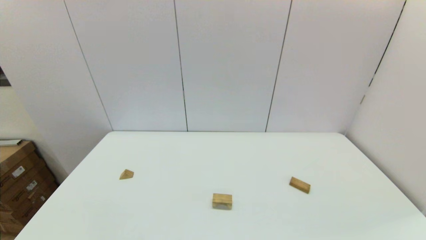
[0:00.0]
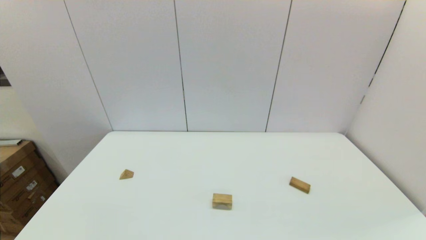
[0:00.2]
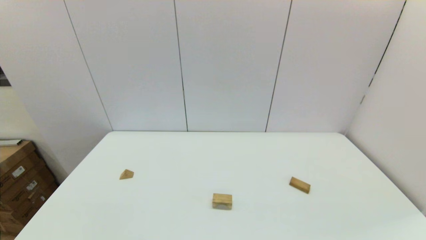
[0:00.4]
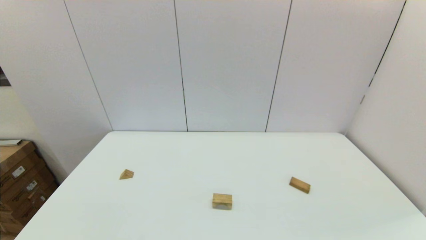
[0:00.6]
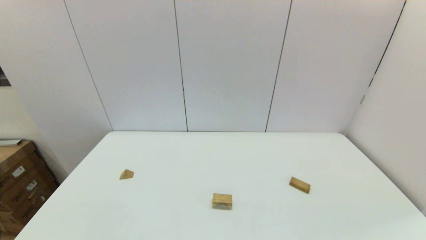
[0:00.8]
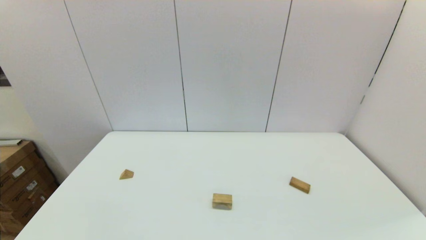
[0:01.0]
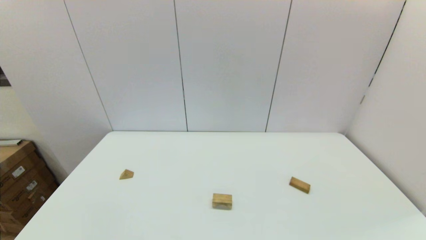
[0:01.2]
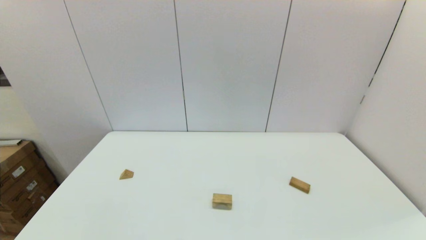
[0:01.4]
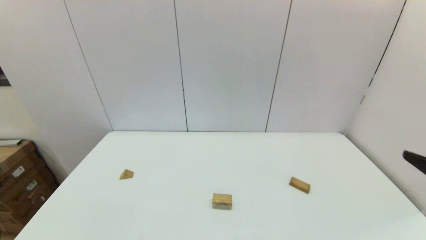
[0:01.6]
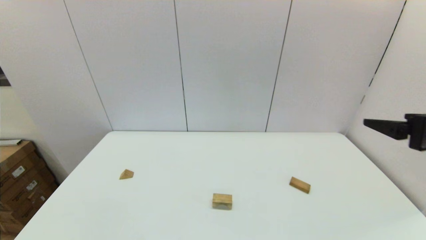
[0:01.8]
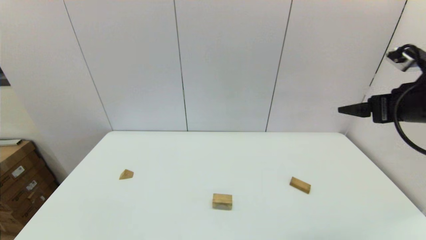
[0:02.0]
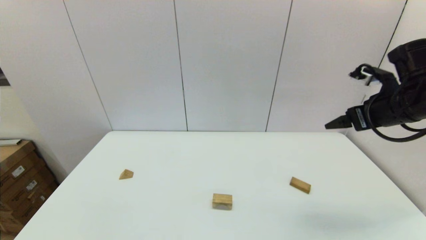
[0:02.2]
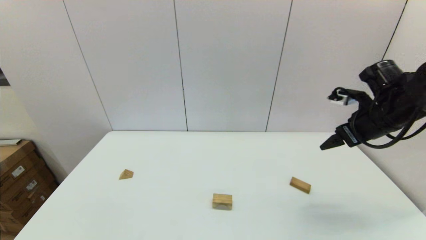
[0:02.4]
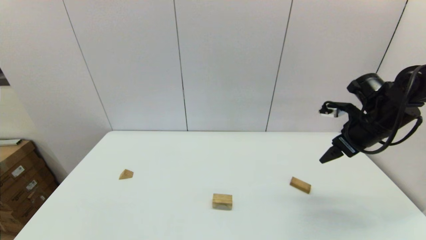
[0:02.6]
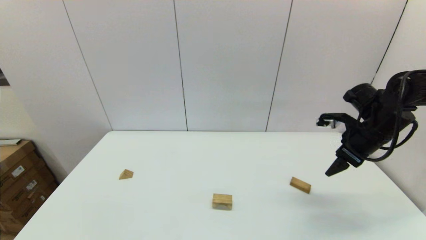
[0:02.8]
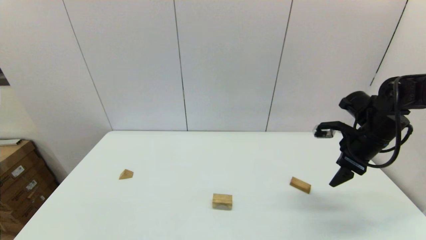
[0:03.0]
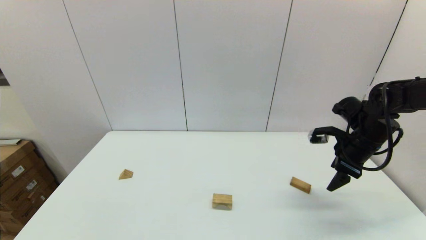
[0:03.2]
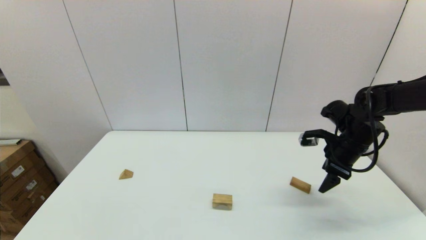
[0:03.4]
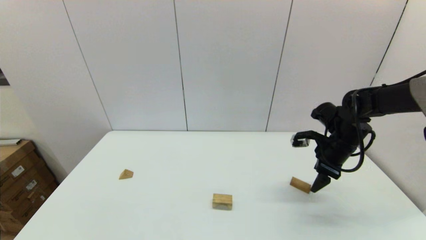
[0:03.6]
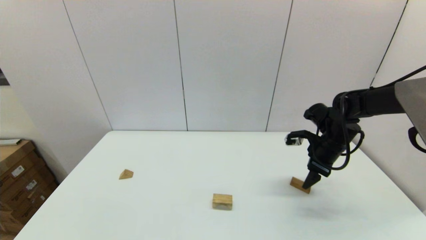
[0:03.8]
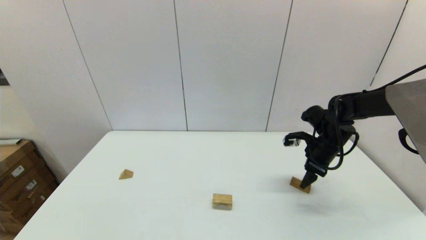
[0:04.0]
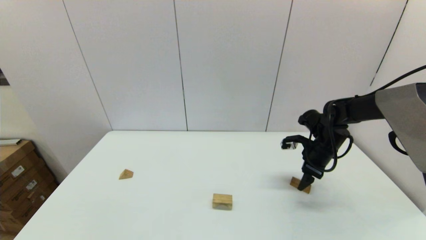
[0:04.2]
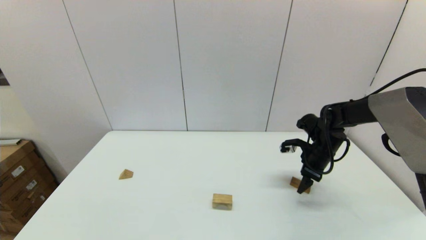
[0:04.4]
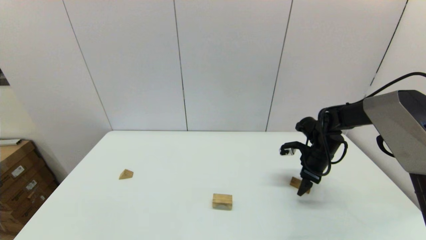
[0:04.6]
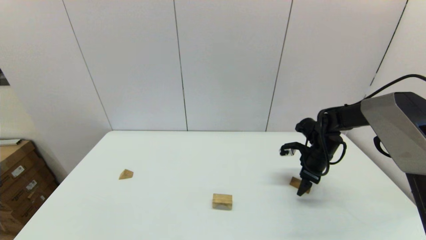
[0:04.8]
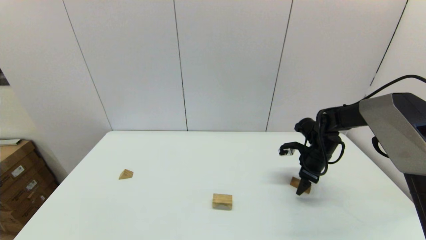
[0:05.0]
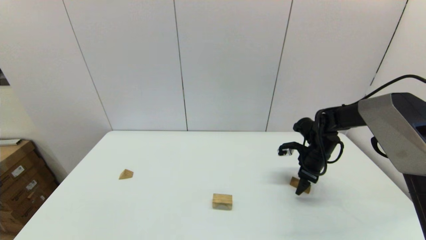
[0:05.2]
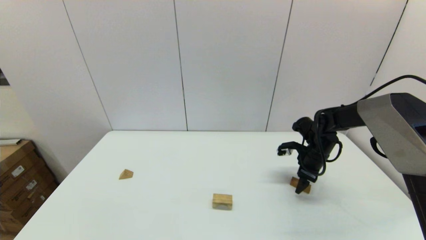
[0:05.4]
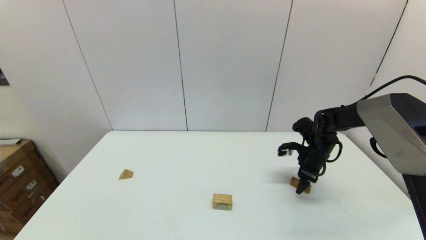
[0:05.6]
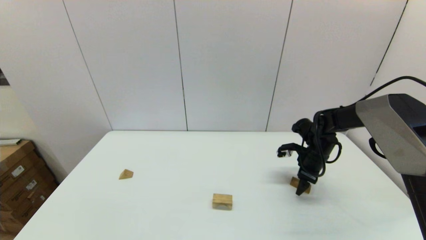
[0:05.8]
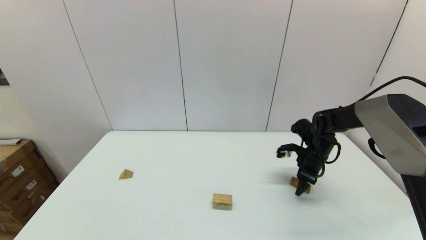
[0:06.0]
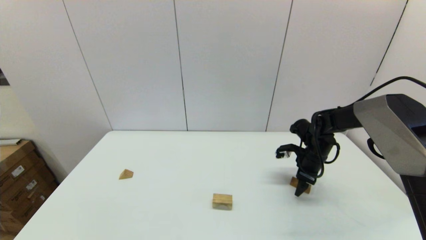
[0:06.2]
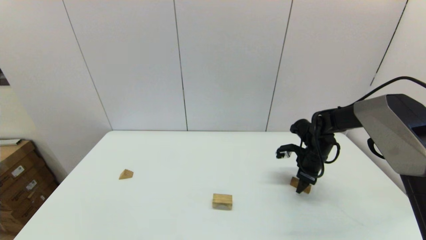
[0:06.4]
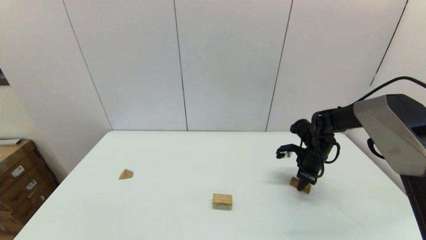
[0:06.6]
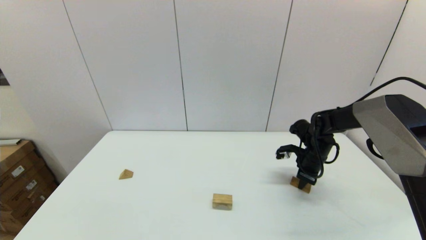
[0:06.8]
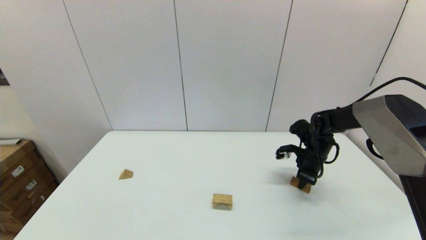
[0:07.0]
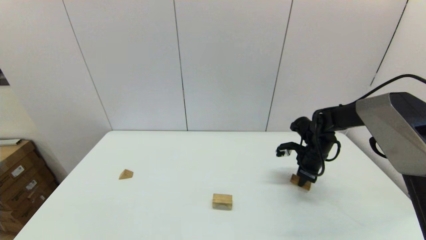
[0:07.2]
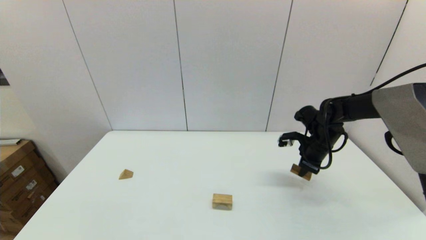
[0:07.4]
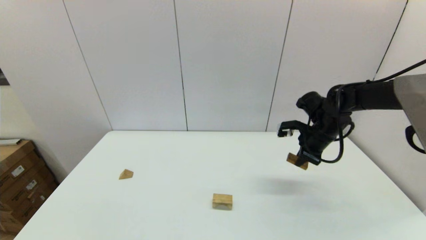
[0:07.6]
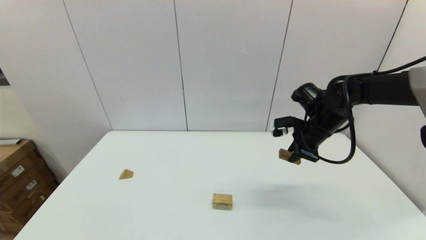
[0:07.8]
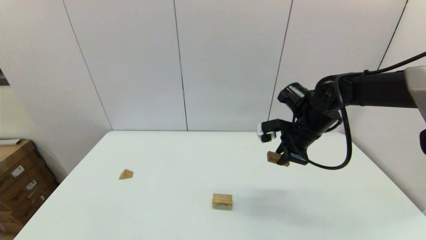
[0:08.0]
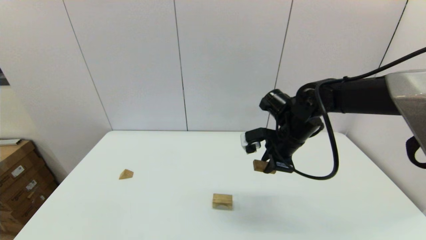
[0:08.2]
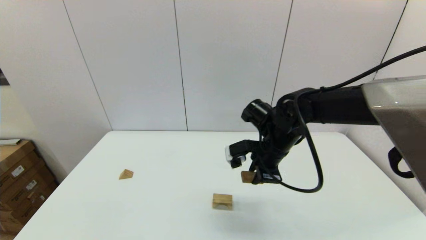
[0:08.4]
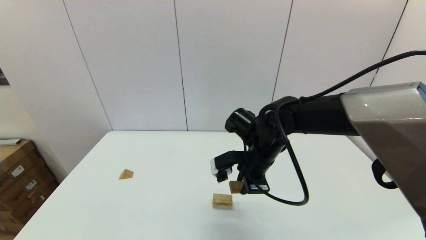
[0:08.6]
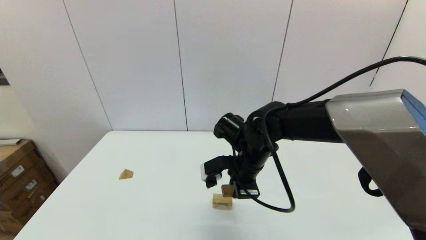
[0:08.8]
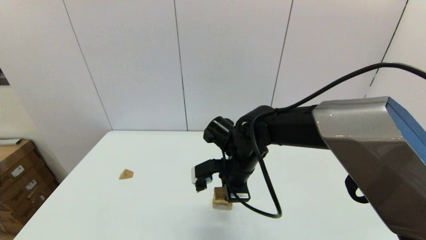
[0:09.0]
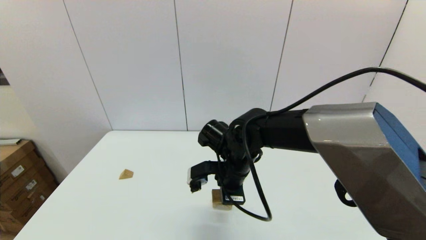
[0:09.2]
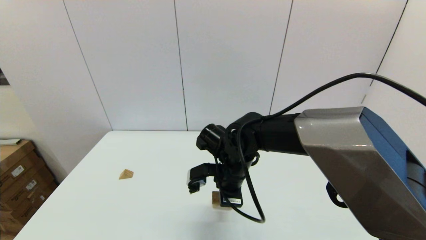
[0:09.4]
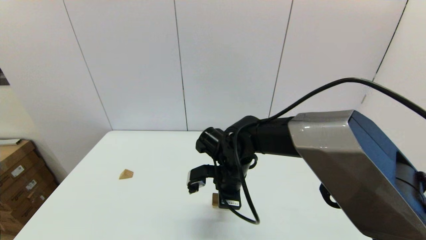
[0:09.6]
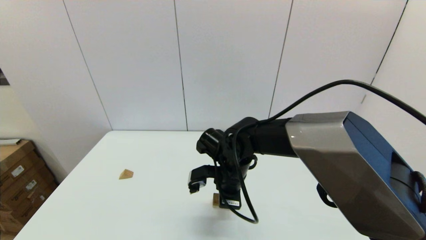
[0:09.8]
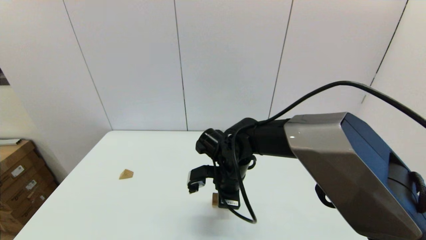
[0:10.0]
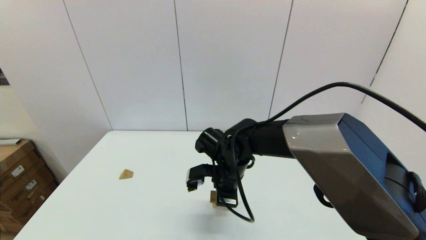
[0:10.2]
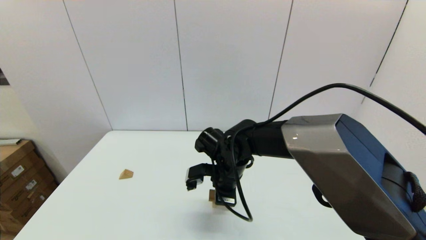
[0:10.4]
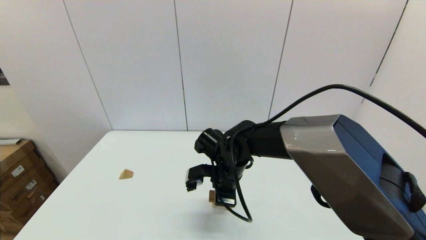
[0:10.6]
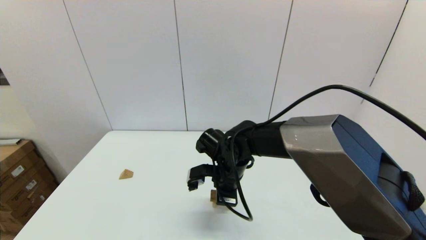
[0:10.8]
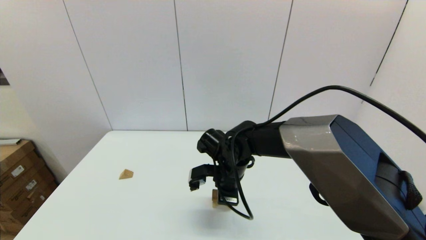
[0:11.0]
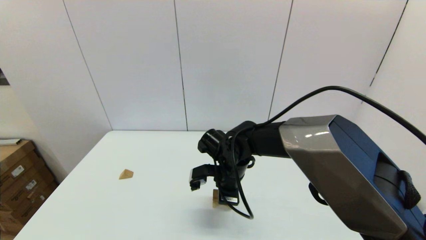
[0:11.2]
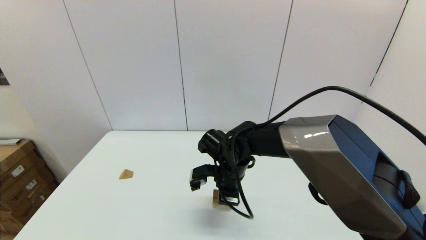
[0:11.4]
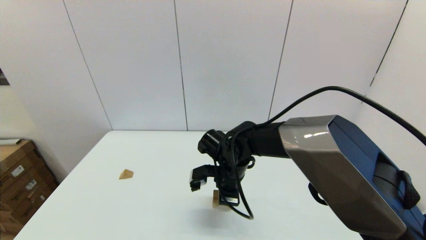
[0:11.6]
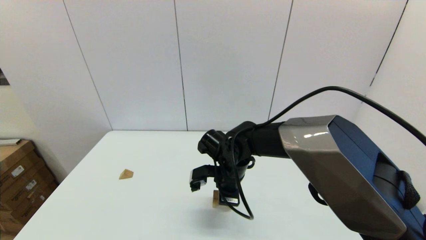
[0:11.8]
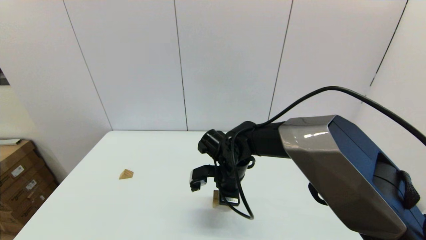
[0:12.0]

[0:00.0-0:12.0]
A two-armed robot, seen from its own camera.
Task of the whole recording: place the arched building blocks in the center of the table, set up the rectangular building blocks, and then set up the triangular building blocks.
Step, 0:00.0 to 0:06.8: Grasp the box-shaped block with the right gripper.
0:01.6 to 0:03.0: The right gripper travels forward by roughly 25 cm.
0:03.0 to 0:04.4: The right gripper is displaced downward and forward by some 10 cm.
0:04.4 to 0:06.0: The grippers stay close to where they were, moving slightly.
0:06.0 to 0:07.6: The right gripper heads upward, covering some 10 cm, and closes.
0:07.6 to 0:09.0: The right gripper is displaced to the left by about 25 cm.
0:09.0 to 0:12.0: The grippers move only a little.

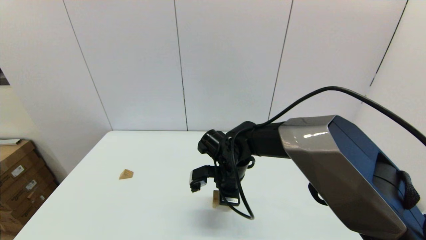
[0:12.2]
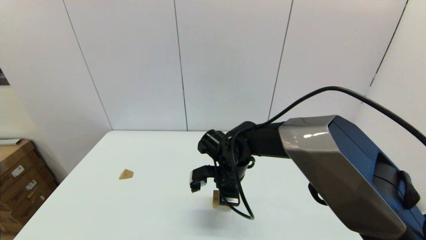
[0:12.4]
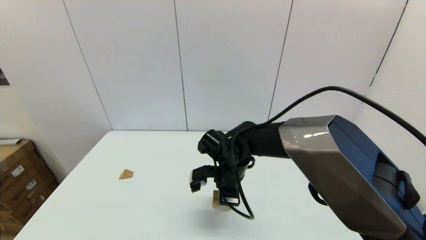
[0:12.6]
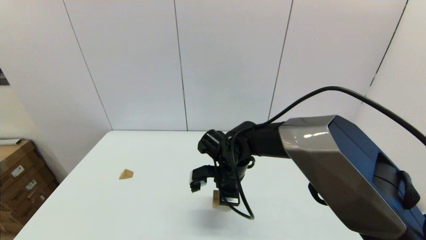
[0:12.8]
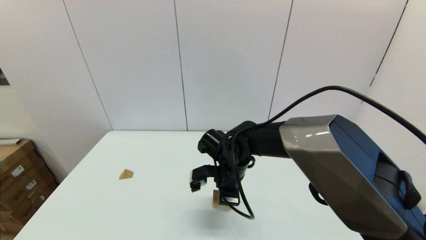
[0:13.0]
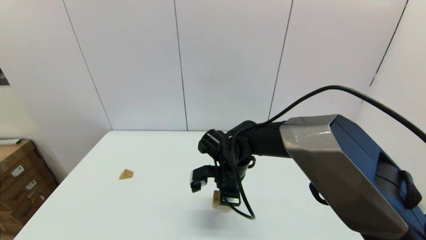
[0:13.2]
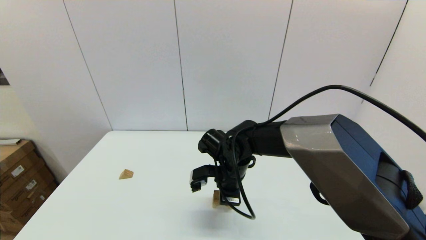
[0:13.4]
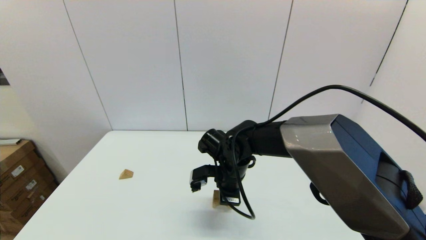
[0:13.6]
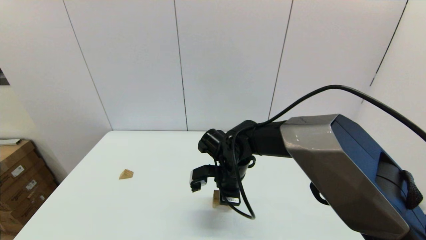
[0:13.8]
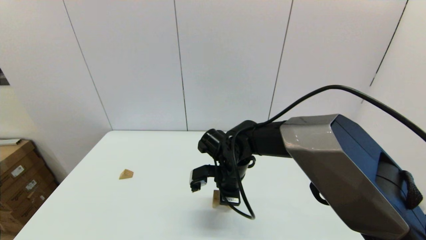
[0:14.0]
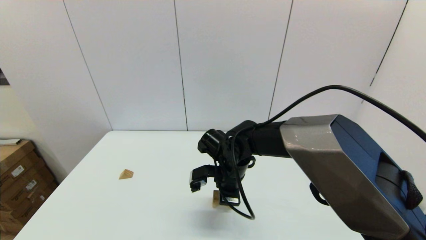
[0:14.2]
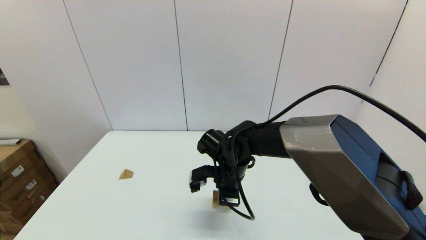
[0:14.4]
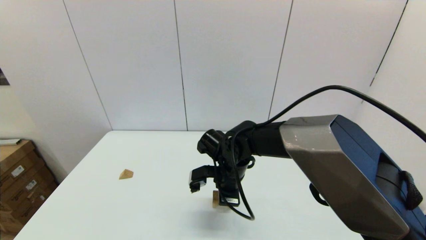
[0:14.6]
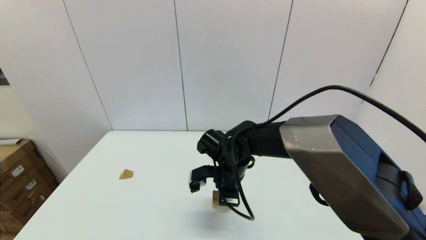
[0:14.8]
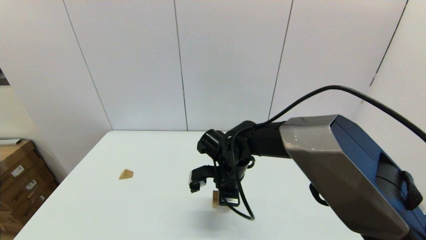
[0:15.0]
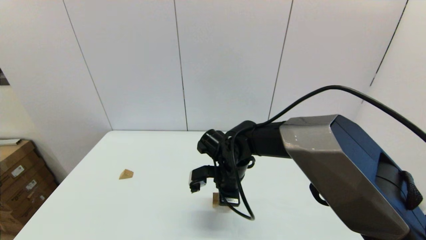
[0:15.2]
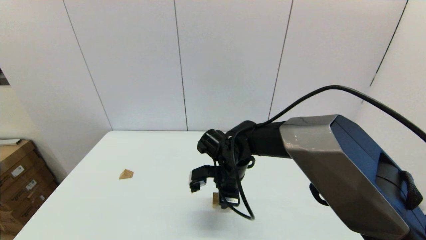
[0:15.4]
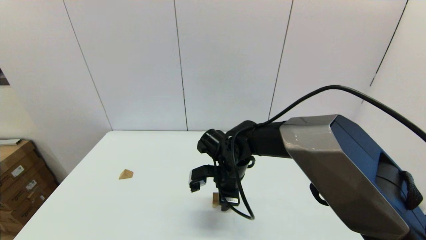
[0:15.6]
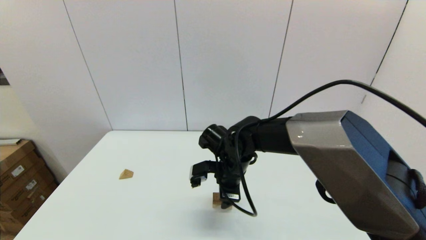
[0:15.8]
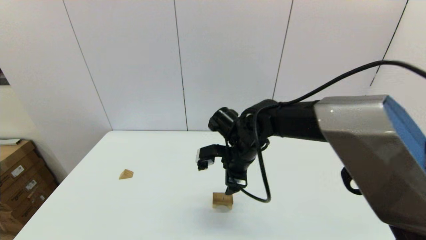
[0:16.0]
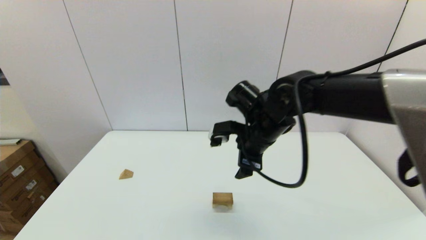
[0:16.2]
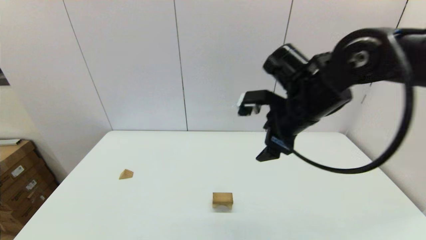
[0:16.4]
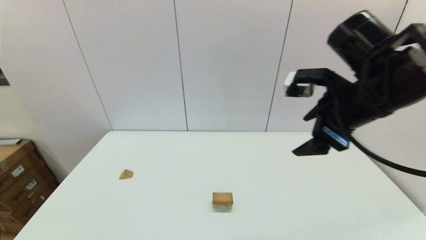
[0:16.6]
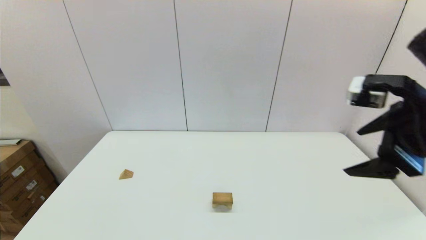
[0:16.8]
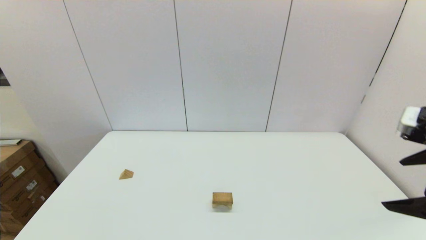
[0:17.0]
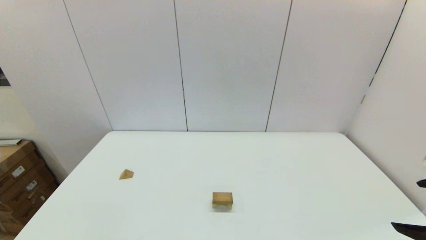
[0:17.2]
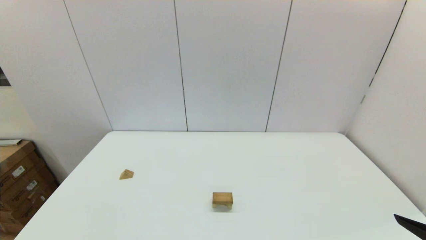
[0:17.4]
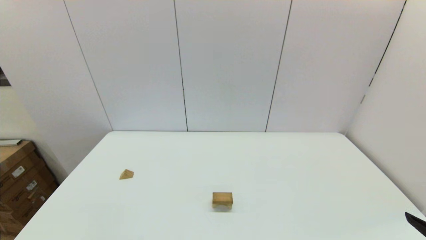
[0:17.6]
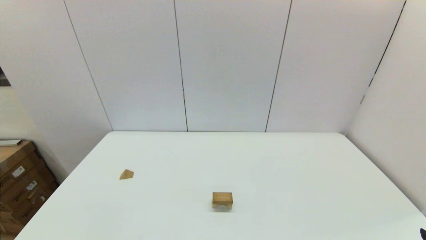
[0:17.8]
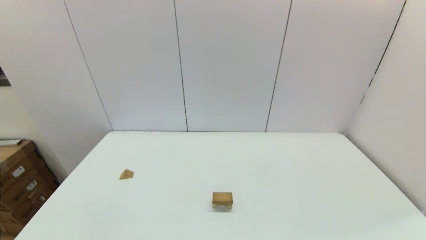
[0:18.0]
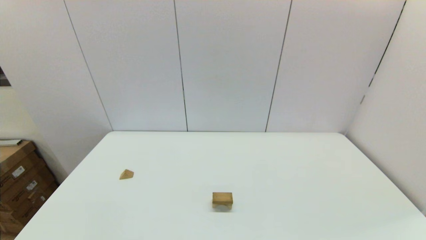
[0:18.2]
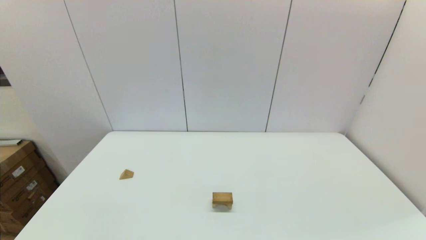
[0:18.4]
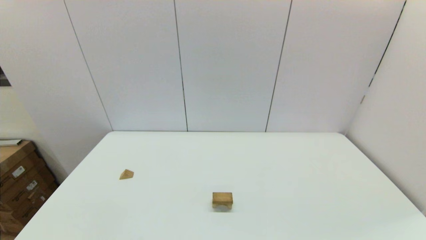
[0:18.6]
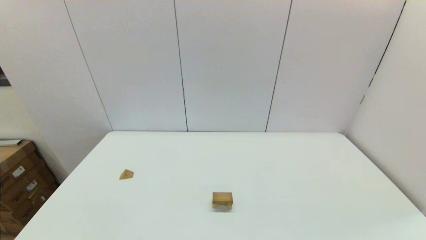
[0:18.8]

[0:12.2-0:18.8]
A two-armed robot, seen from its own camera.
Task of the whole recording: place the arched building blocks in the center of the table, set up the rectangular building blocks, and then set up the triangular building blocks.
Step, 0:12.2 to 0:15.4: Place the box-shaped block onto the arch-shaped block with the right gripper.
0:12.2 to 0:13.8: Both grippers stay put.
0:13.8 to 0:15.4: The right gripper opens up.
0:15.4 to 0:17.2: The right gripper moves to the right, backward and upward, about 40 cm, and opens.
